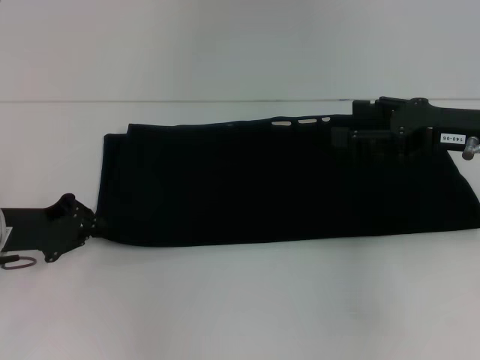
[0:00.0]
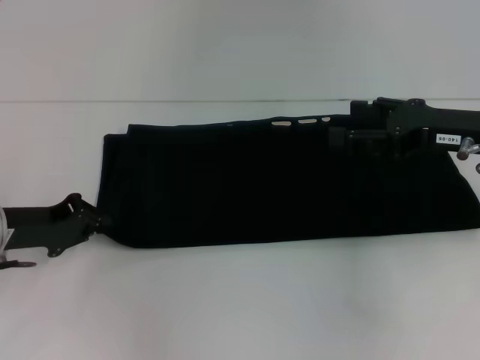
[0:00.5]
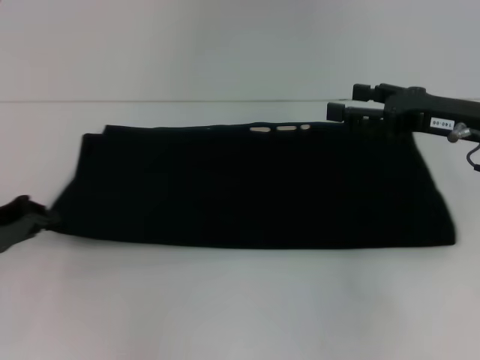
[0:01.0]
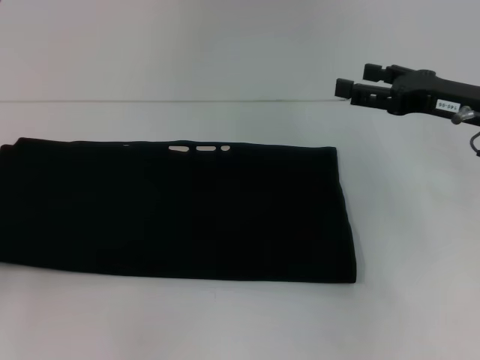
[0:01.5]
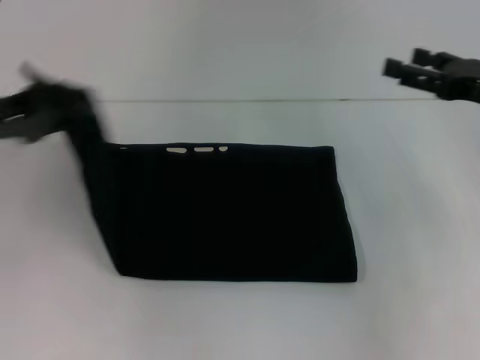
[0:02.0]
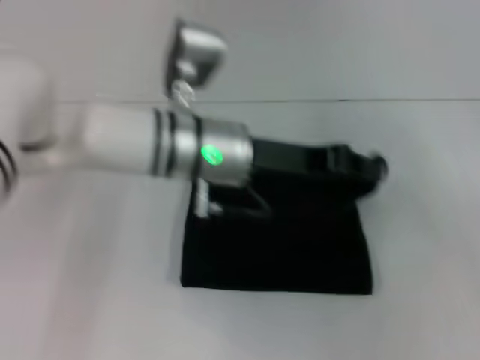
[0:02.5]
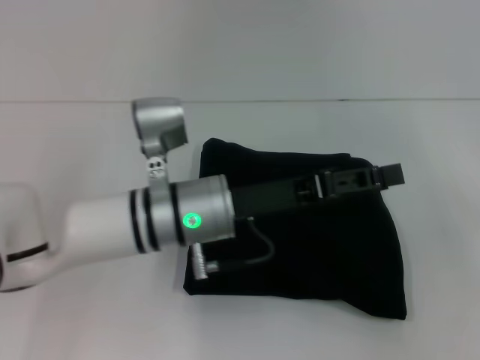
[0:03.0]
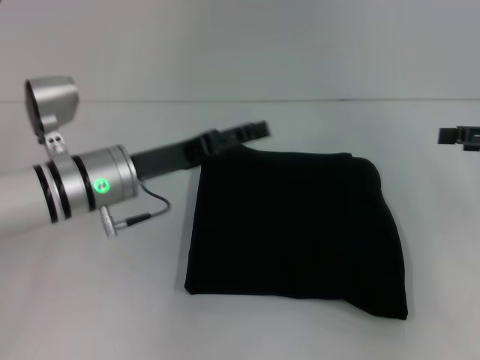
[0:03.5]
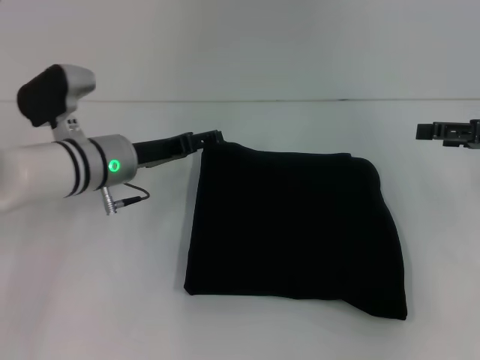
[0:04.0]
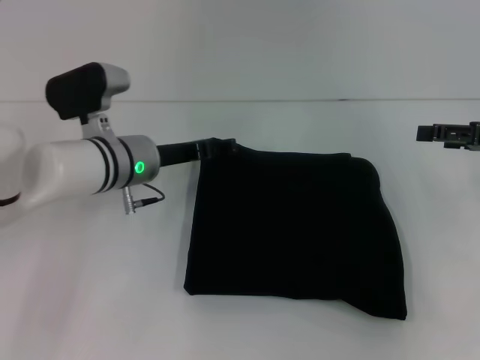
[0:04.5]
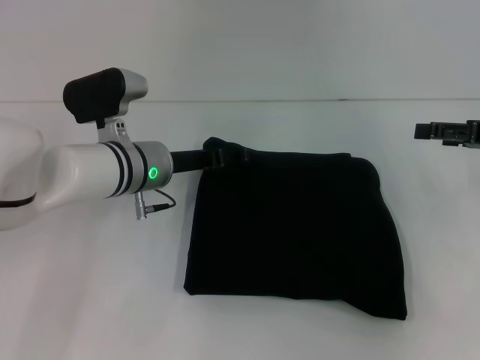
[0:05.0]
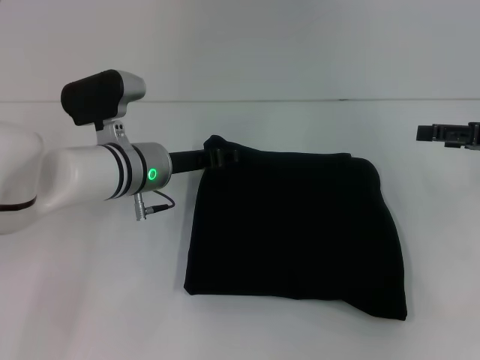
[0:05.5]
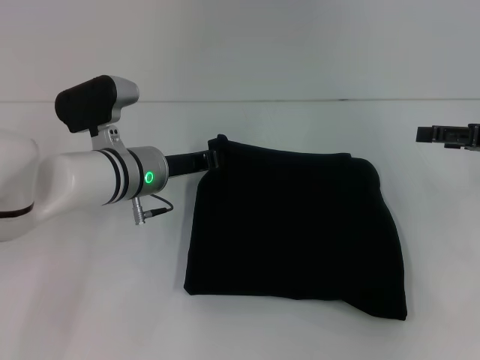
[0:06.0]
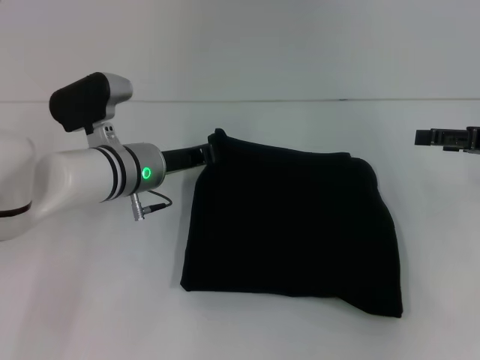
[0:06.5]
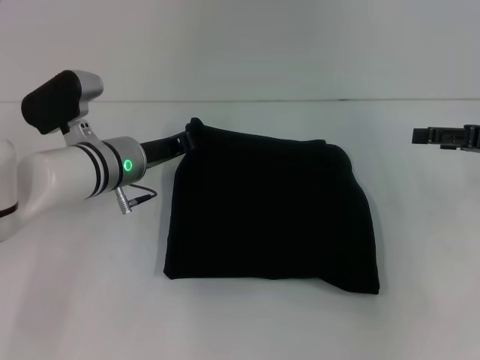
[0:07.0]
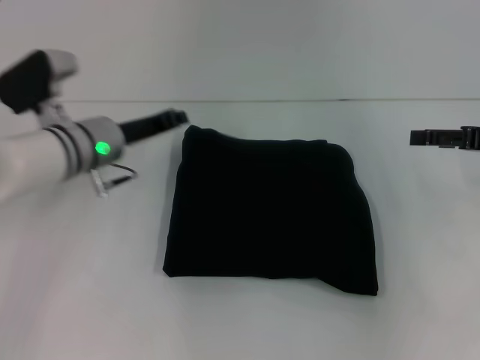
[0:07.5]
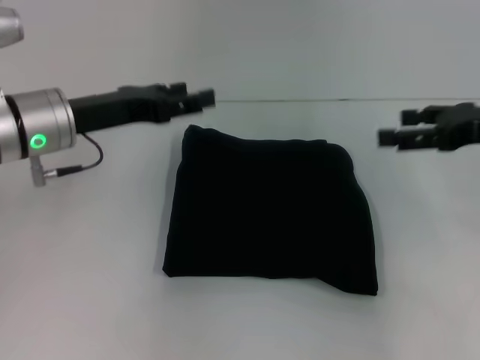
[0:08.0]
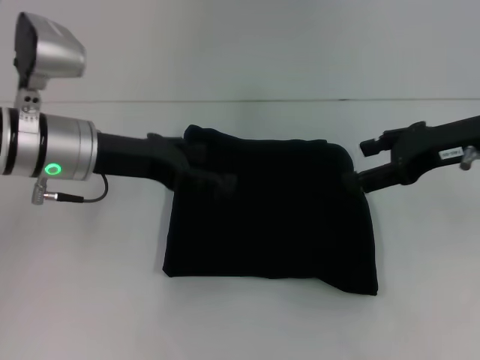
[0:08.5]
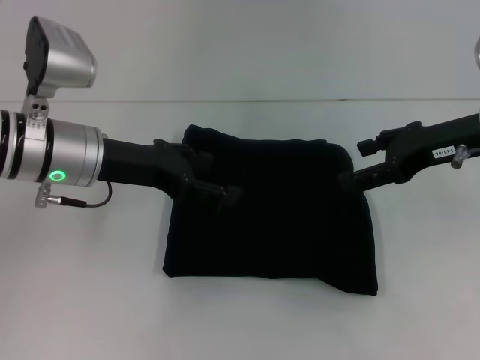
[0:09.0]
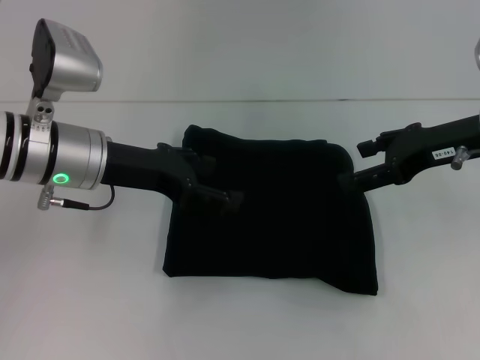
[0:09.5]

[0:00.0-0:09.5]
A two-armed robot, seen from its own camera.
Step, 0:00.0 to 0:02.5: Fold the clothes with your left hand.
0:00.0 to 0:02.0: The left gripper shifts some 10 cm upward, and travels to the left and back again, some 15 cm each way.
0:02.0 to 0:04.0: The left gripper moves to the right and downward, about 20 cm, and opens its fingers. The right gripper travels to the right and back again, some 10 cm each way.
0:04.0 to 0:05.5: The grippers move only a little.
0:05.5 to 0:07.5: The left gripper moves to the left, about 5 cm, and closes up.
0:07.5 to 0:09.5: The right gripper heads to the left, covering about 10 cm, while the left gripper travels upward by approximately 5 cm, and opens its fingers.
